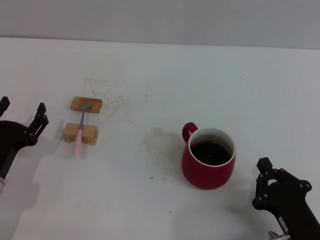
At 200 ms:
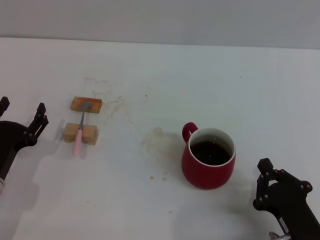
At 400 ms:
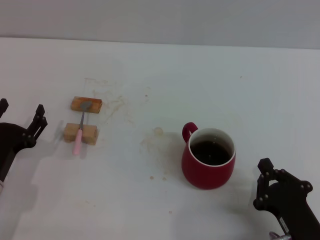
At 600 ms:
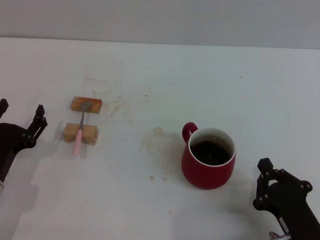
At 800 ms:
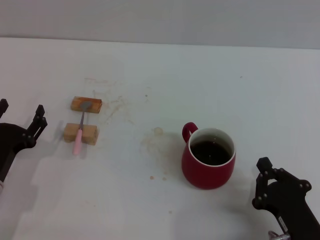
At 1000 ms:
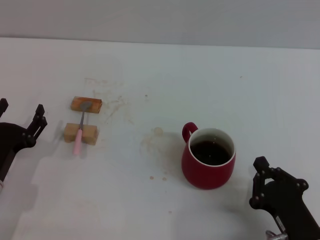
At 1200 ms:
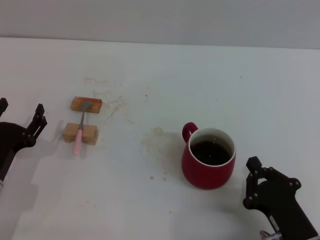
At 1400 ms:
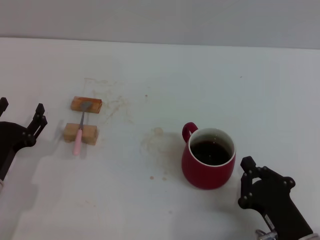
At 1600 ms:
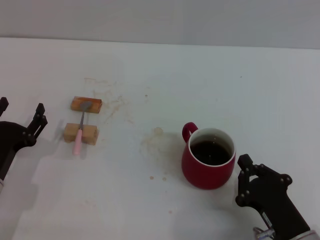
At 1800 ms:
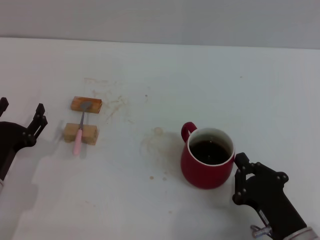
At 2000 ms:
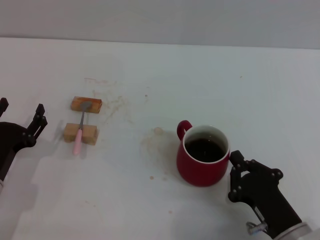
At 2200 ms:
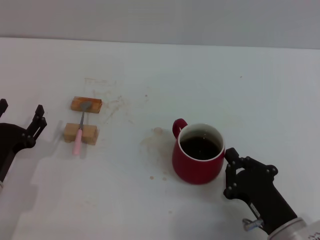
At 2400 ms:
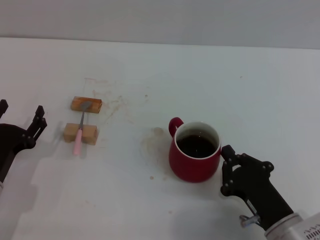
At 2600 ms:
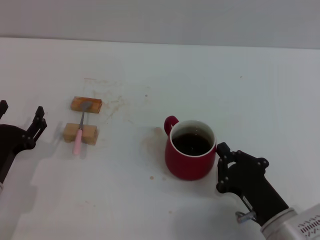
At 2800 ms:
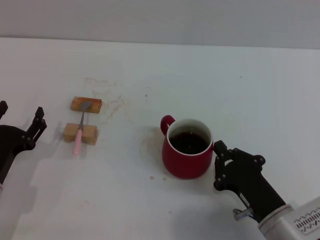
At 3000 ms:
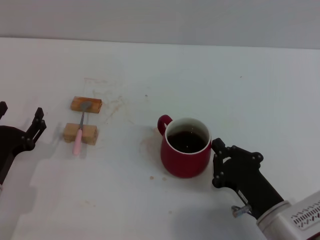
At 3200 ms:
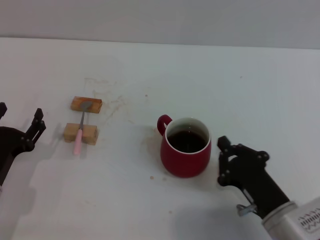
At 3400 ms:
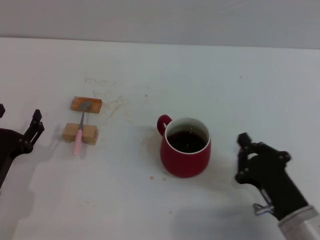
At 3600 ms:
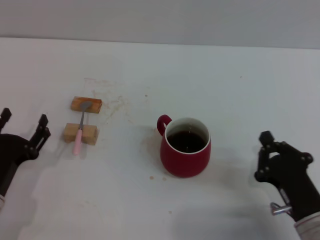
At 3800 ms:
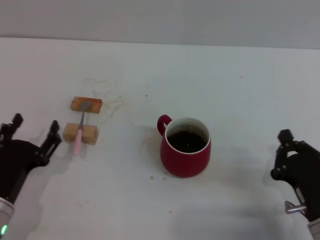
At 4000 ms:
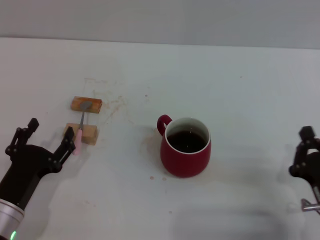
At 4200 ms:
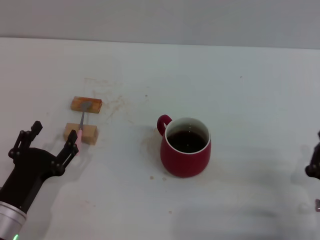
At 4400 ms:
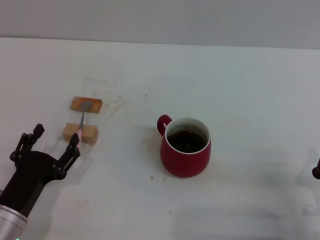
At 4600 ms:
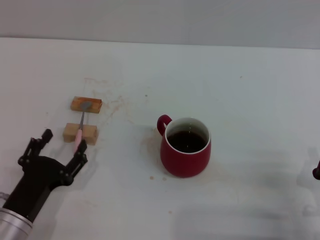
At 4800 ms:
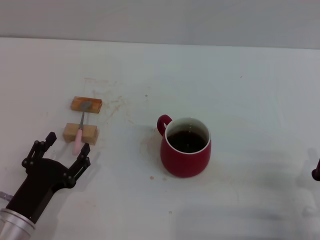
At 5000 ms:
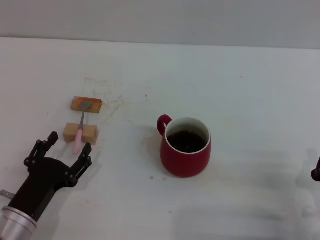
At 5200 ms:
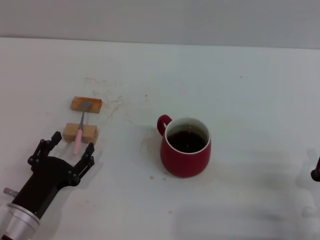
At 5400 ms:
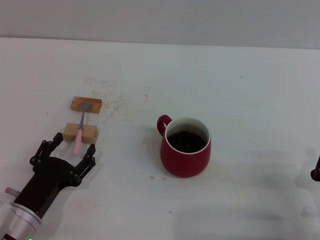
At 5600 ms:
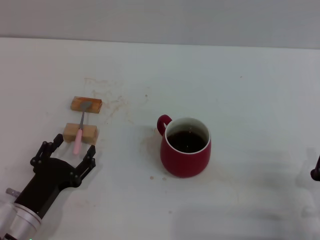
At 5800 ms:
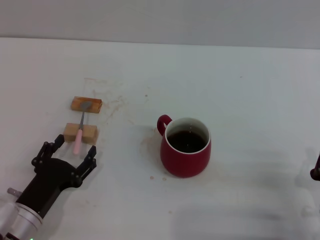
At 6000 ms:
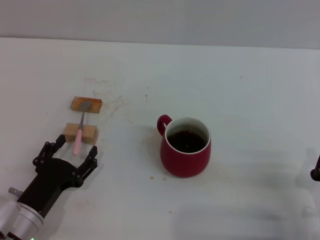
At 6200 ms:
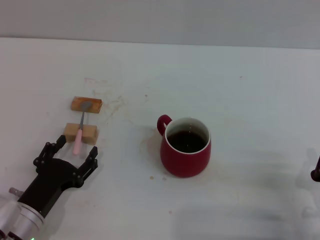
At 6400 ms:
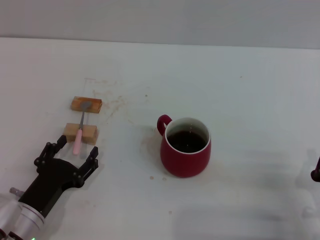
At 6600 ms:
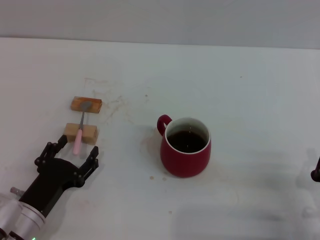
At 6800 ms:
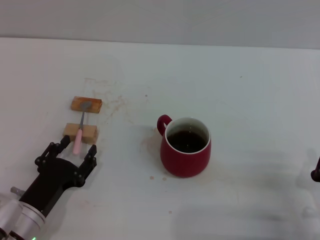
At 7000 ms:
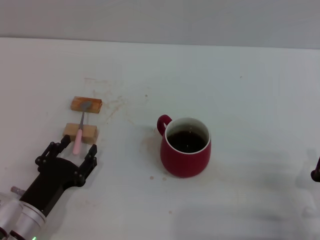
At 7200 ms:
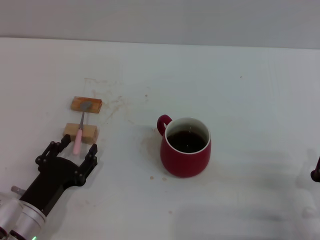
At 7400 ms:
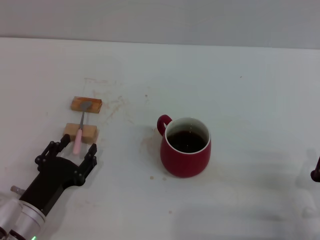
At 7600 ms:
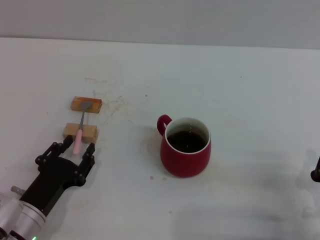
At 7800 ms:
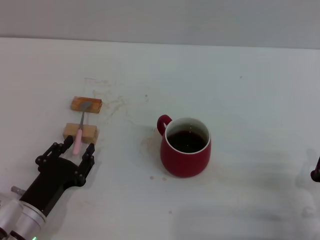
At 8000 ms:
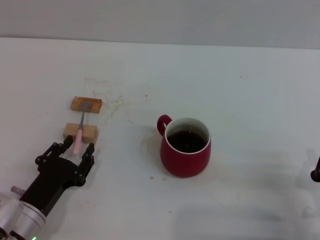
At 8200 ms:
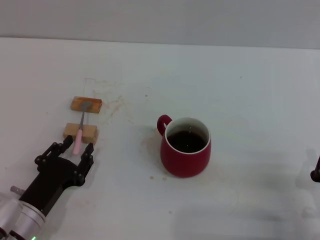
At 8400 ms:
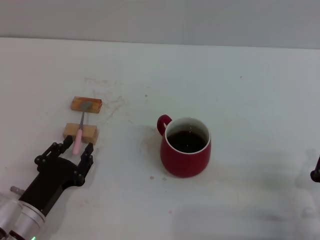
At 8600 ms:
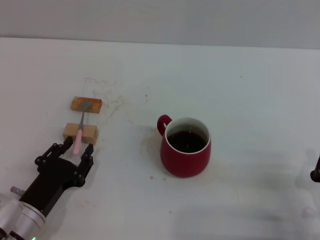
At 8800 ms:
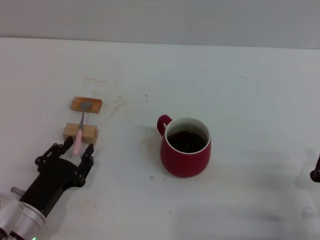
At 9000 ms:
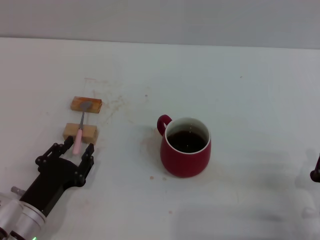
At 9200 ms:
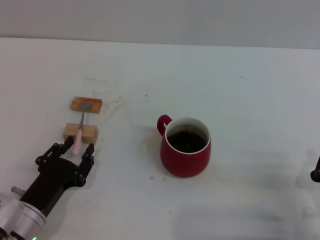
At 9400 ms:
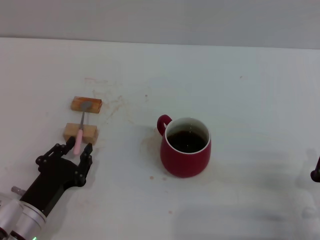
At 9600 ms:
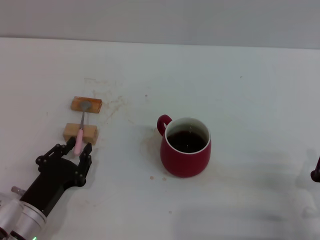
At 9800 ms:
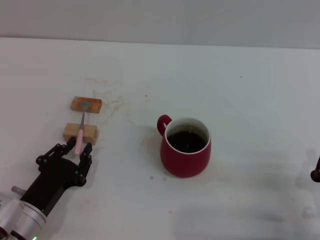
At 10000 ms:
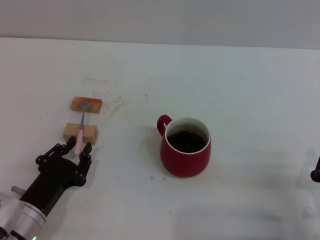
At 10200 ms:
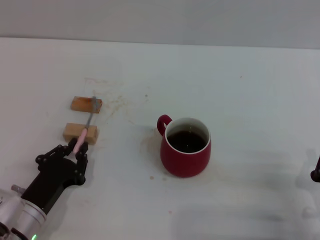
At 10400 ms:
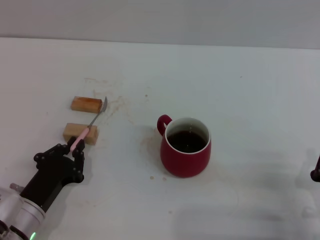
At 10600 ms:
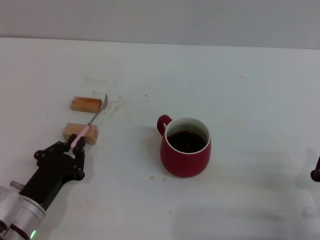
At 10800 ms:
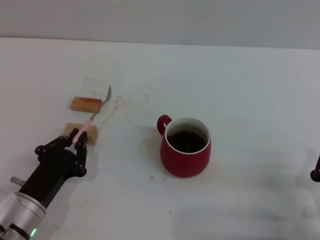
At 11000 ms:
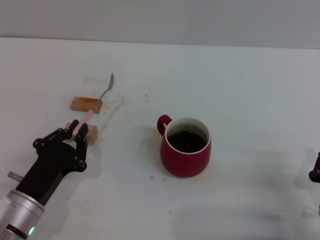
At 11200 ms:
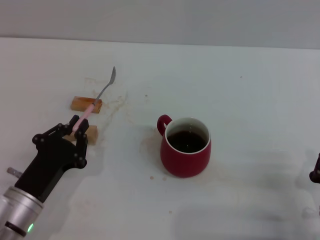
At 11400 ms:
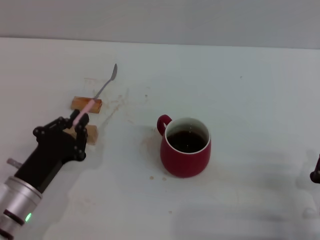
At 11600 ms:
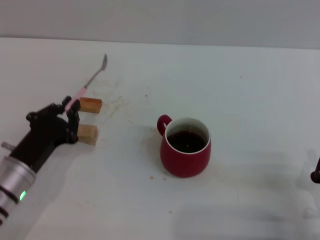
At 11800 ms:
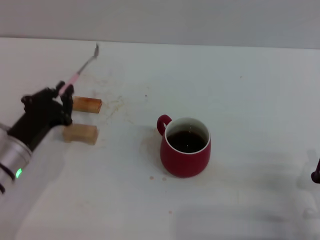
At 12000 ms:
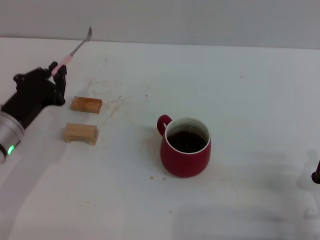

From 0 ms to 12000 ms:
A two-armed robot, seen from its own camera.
Task of the whole recording: Move the red cup to the center, lift the pink spoon, stir it three times in the cup, and put the spoon into the cup.
Step, from 0 ms to 3000 ms: Move the cup in the center of the table with right gripper.
Step, from 3400 ms to 10400 ms: Grasp the spoon with left gripper.
From 0 ms to 3000 ms: There are only small adjustments of the grippers.
From 3000 ms to 4400 ms: The right gripper goes roughly 10 cm to the right. The left gripper shifts by roughly 5 cm.
From 4400 ms to 6000 ms: The grippers stay close to where they were, moving slightly.
From 6000 ms to 7600 ms: The left gripper closes its fingers.
From 7600 ms to 9000 ms: The two grippers keep their place.
From 9000 ms to 10400 ms: The left gripper closes.
From 10400 ms to 12000 ms: The left gripper shifts roughly 15 cm forward and upward.

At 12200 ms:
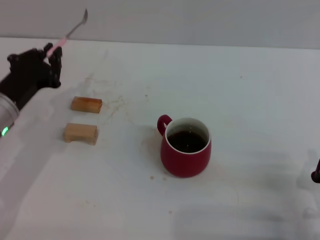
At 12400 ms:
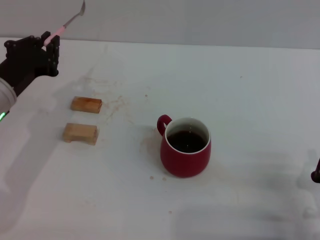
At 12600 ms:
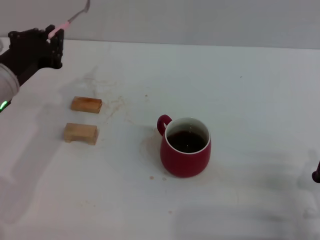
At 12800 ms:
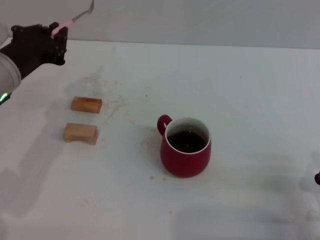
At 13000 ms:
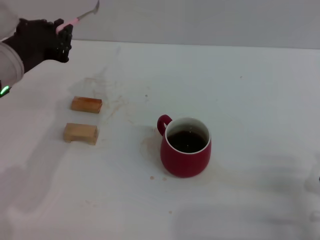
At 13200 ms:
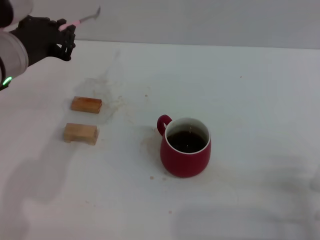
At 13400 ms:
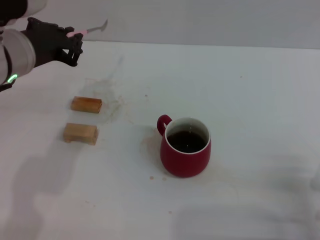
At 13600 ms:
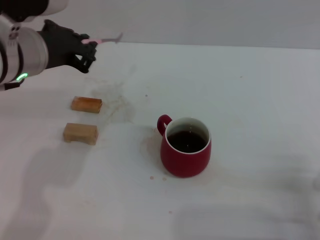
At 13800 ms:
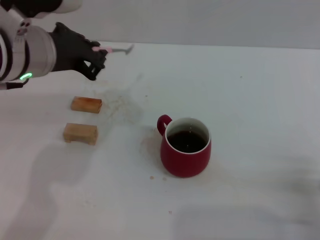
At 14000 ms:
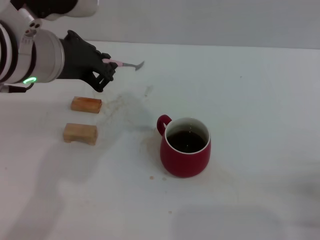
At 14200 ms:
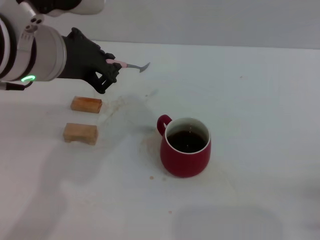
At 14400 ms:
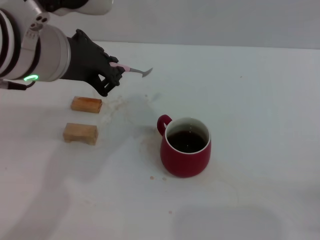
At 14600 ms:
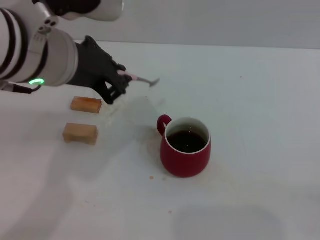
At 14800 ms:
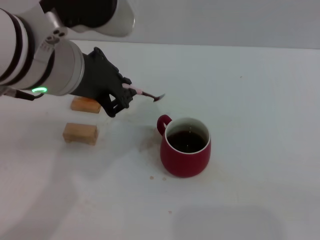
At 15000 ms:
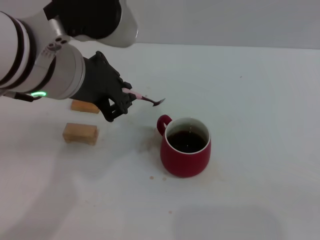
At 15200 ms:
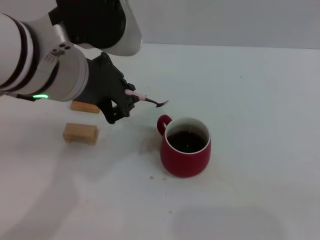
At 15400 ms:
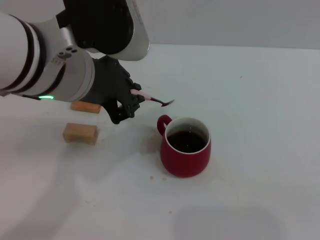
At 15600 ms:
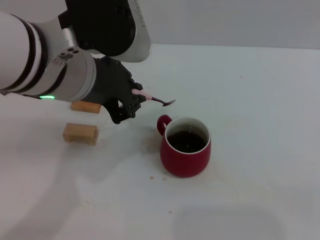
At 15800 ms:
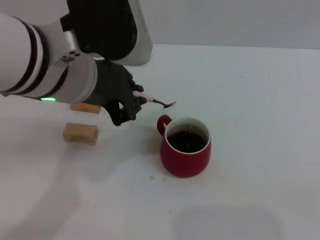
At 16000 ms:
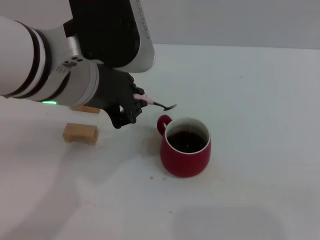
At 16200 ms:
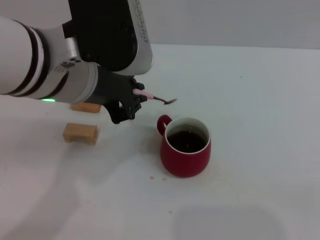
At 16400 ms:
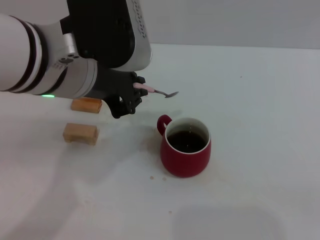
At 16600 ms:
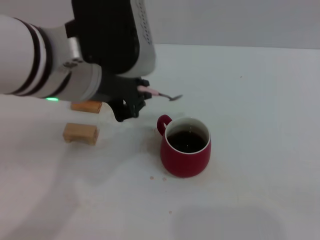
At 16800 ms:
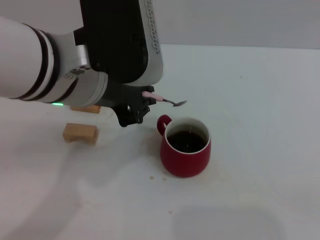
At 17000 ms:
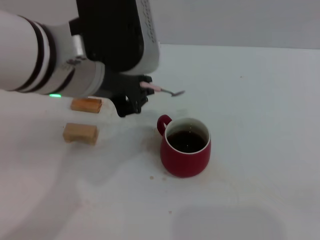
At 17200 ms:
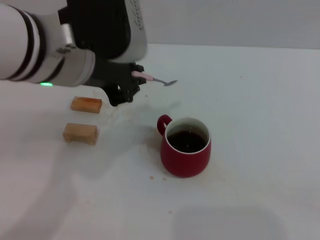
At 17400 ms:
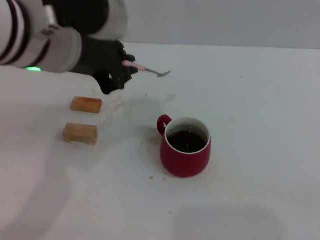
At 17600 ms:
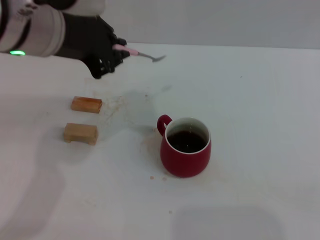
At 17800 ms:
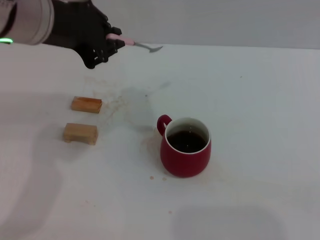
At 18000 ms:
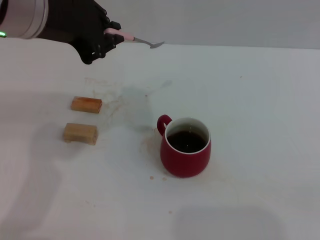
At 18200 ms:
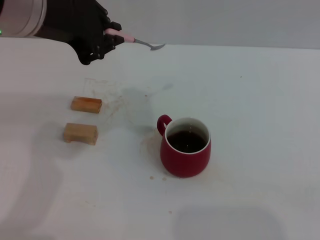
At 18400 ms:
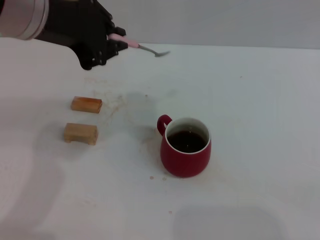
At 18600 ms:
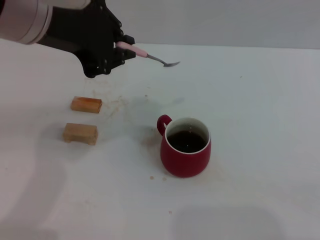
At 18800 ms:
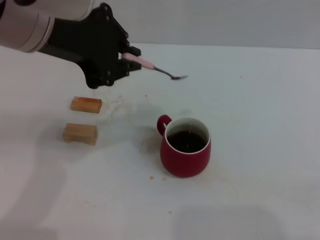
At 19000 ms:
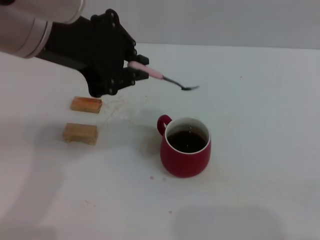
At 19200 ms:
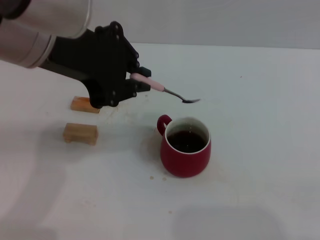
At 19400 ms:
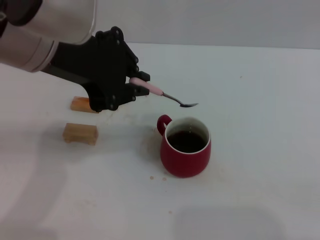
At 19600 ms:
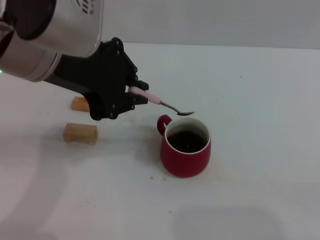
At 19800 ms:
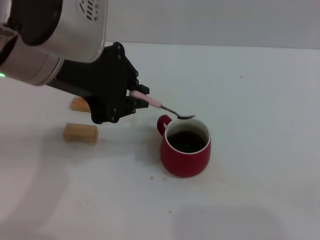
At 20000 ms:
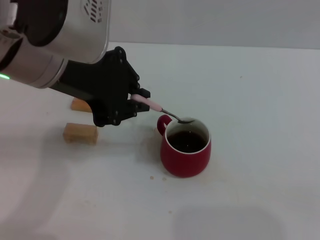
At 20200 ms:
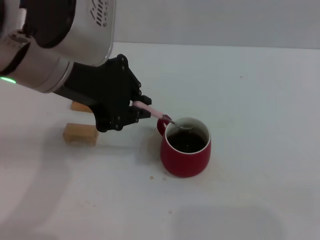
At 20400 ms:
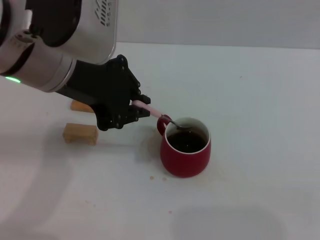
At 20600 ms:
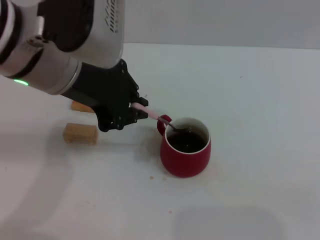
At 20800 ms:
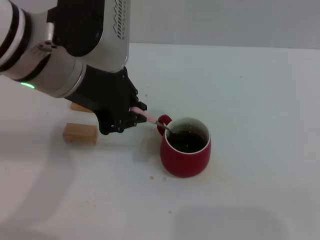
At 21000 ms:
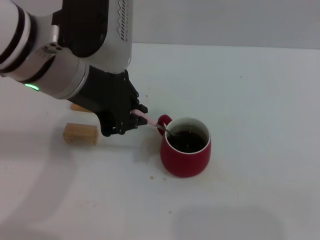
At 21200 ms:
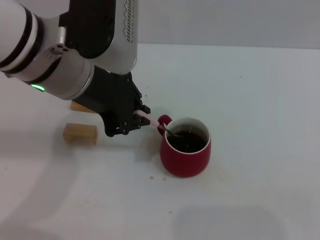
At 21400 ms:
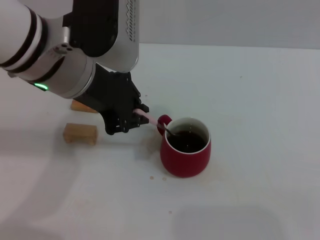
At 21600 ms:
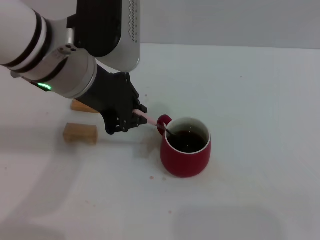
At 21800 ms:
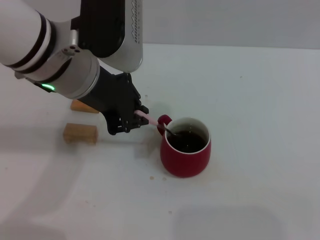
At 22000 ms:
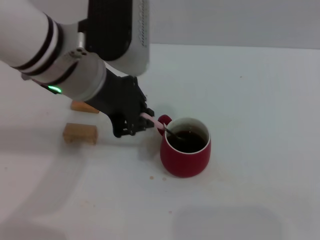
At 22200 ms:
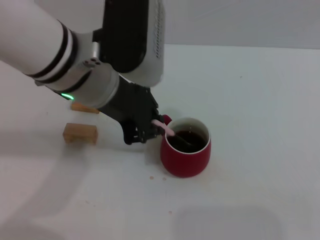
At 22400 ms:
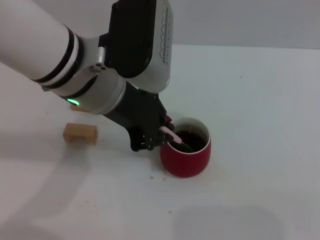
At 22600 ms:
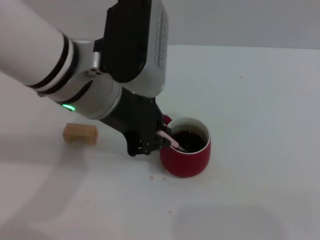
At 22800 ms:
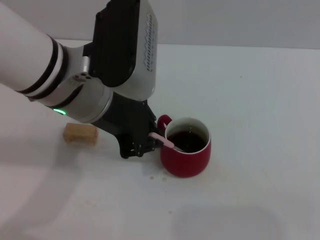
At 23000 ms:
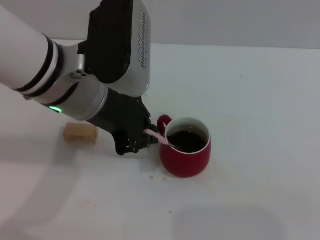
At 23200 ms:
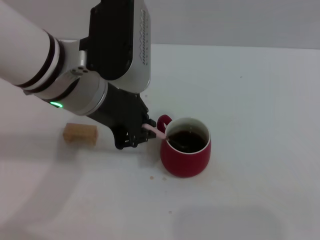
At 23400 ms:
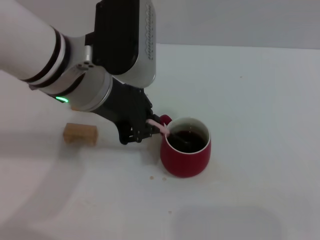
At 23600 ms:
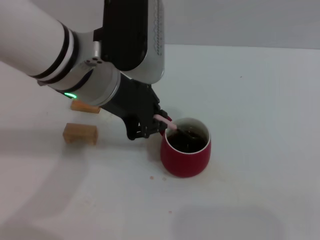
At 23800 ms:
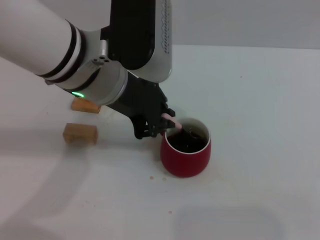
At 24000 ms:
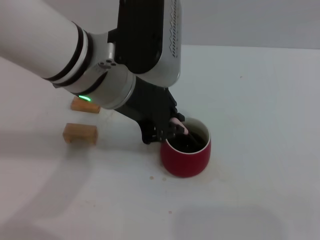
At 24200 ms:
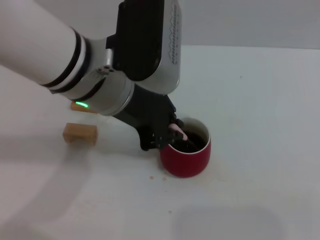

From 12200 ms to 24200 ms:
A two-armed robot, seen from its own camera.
Task of the whole recording: Move the red cup to the center, lift the pink spoon, stir it three times in the cup, and put the spoon into the cup.
From 12200 ms to 13800 ms: The left gripper shifts roughly 20 cm upward and to the right.
From 13800 ms to 15200 ms: The right gripper is displaced to the right by approximately 5 cm; the left gripper shifts by roughly 5 cm.
From 15200 ms to 16600 ms: The grippers make only small movements.
From 16600 ms to 18200 ms: The left gripper moves approximately 10 cm.
From 18200 ms to 19800 ms: There are only small adjustments of the grippers.
From 19800 ms to 21200 ms: The left gripper ends up approximately 5 cm from where it was.
From 21200 ms to 24200 ms: There are only small adjustments of the grippers.
